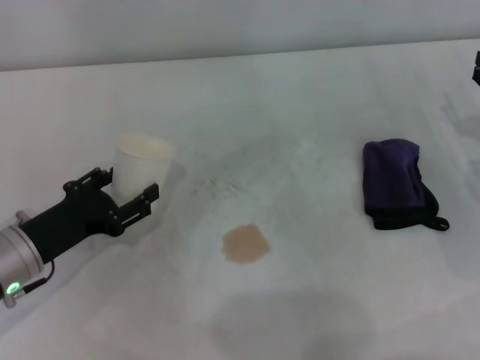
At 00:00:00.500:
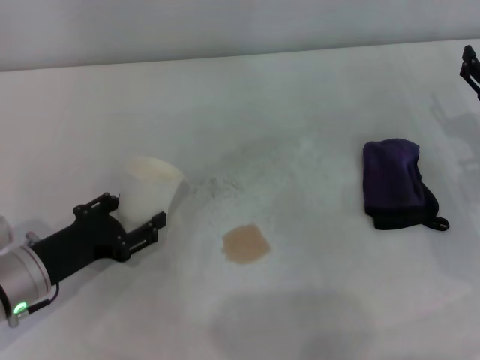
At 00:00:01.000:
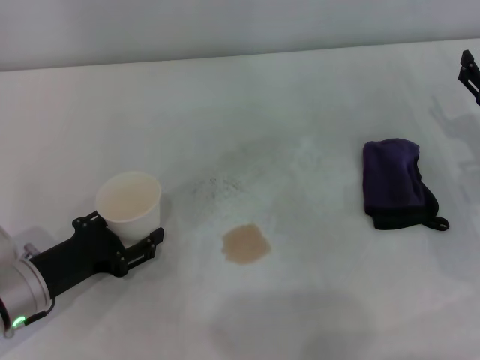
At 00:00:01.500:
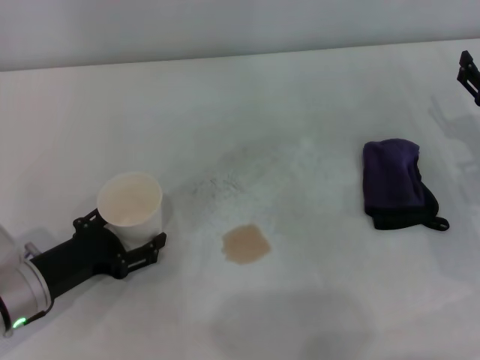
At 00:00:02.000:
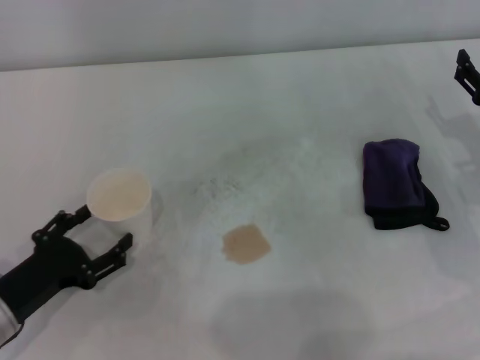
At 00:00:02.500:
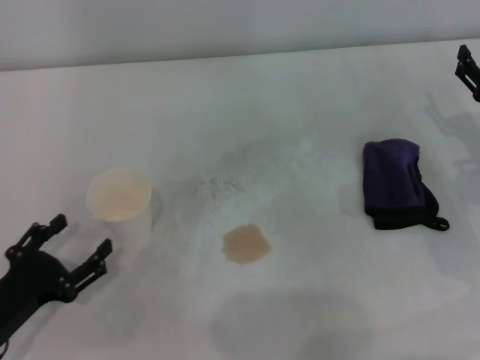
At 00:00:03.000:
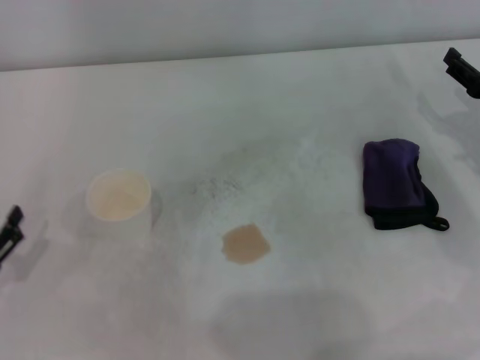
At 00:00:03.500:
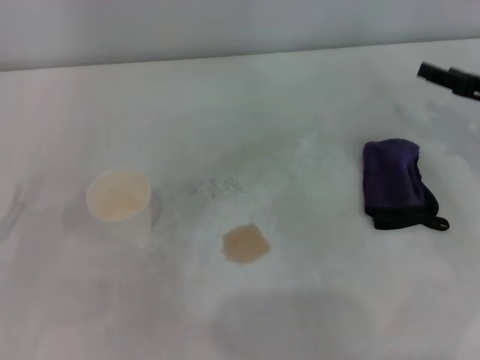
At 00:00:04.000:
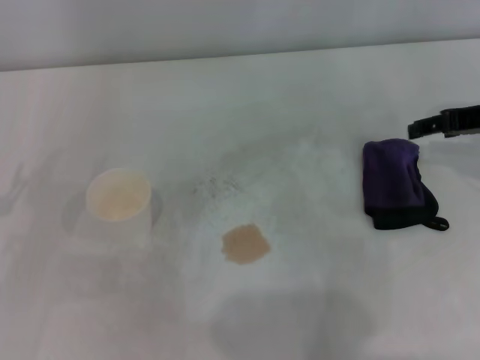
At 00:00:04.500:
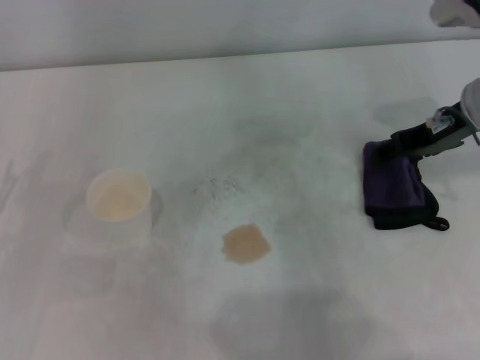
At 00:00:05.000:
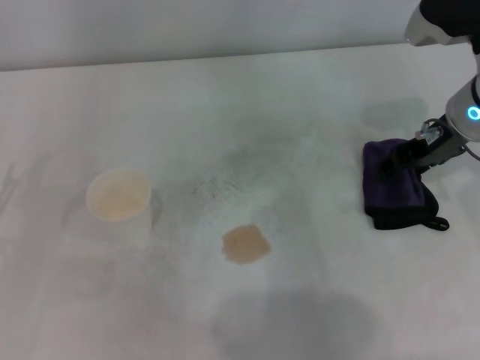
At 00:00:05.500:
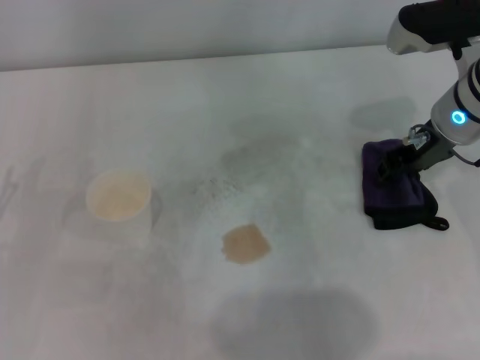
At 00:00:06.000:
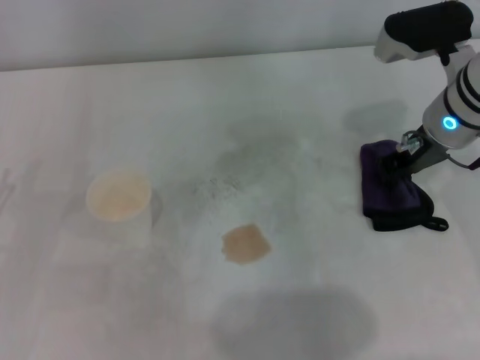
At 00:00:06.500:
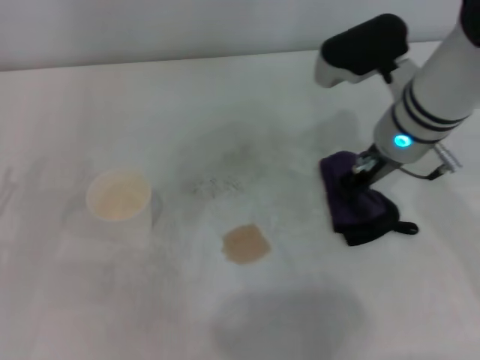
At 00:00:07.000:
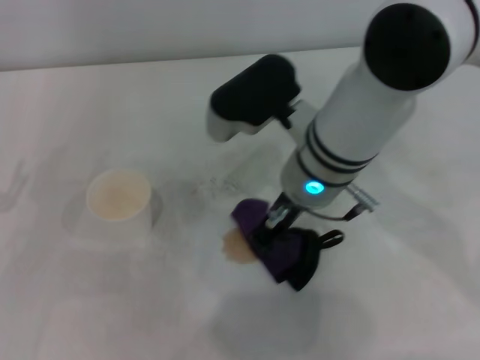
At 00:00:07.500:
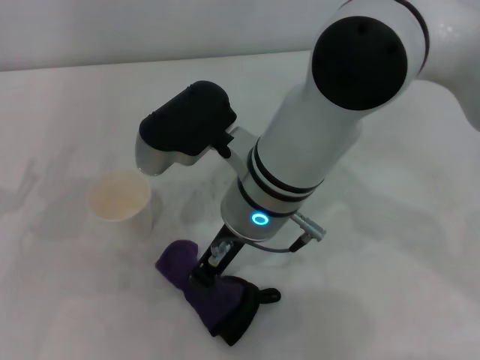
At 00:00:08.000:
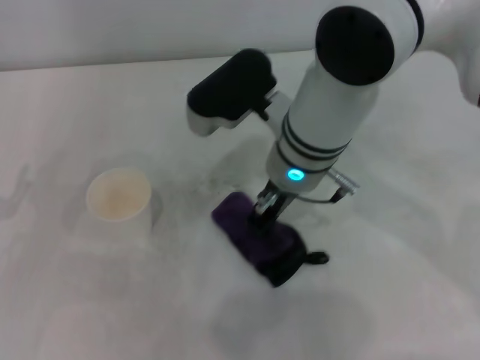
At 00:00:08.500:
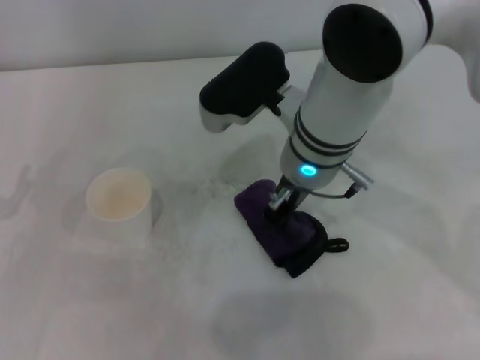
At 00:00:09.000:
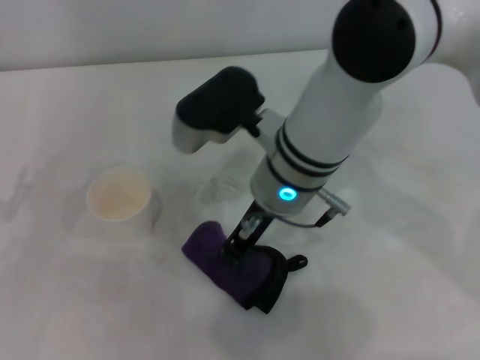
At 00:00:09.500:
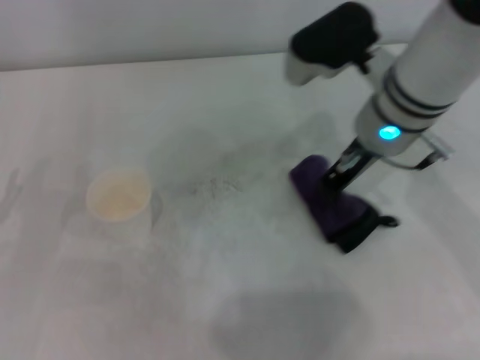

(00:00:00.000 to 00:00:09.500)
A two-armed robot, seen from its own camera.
Step, 00:00:01.500 - 00:00:05.500: Grasp the rag with the right gripper.
00:00:00.000 - 00:00:02.000: The left gripper moves backward, roughly 5 cm, and opens.
00:00:02.000 - 00:00:04.000: The left gripper is displaced to the left by some 5 cm; the right gripper is displaced upward by some 10 cm.
00:00:04.000 - 00:00:05.500: The right gripper shifts roughly 10 cm to the left, and closes its fingers.
00:00:05.500 - 00:00:07.500: The right gripper moves to the left, approximately 20 cm, and closes its fingers.
00:00:07.500 - 00:00:09.500: The right gripper is displaced to the right and forward by roughly 15 cm.

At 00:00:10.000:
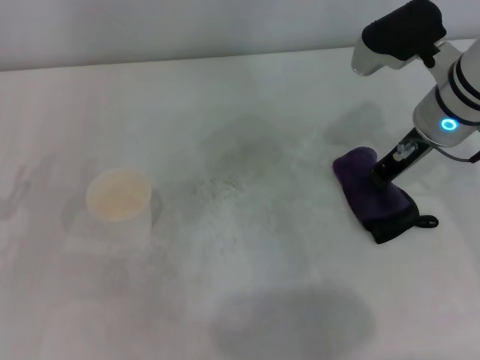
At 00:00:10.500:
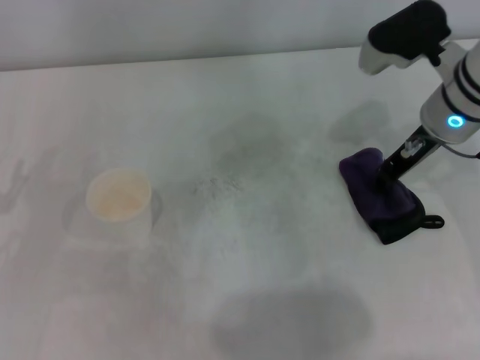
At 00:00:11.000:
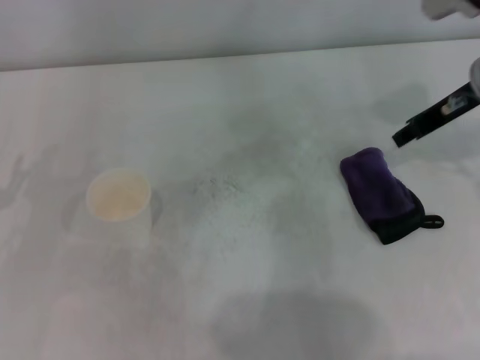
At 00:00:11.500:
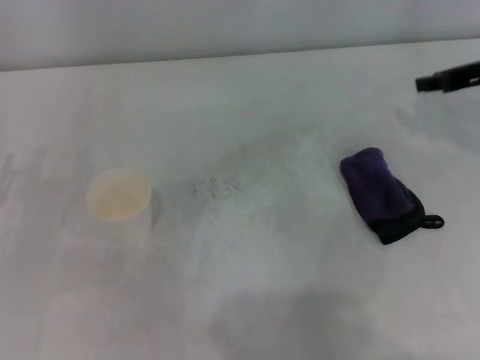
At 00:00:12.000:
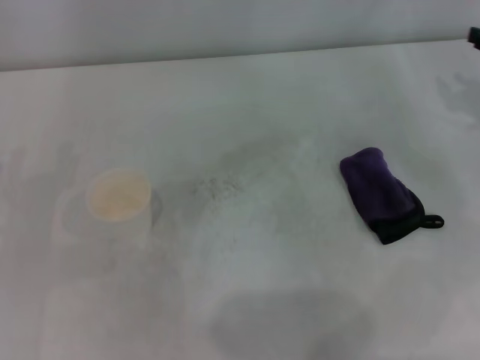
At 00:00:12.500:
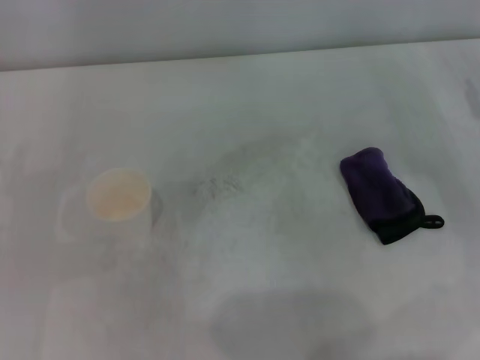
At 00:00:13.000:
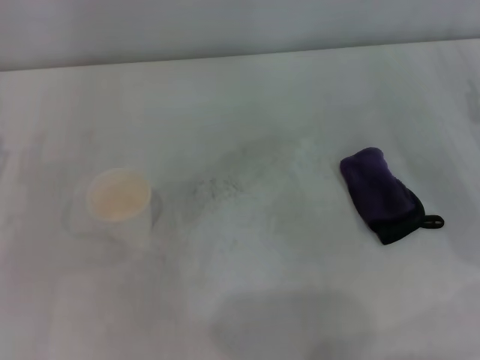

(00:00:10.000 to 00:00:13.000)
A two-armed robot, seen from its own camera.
Step, 00:00:10.000 - 00:00:10.500: Place the rag on the table with the right gripper.
00:00:10.000 - 00:00:11.500: The right gripper is displaced to the right by approximately 10 cm.
00:00:11.500 - 00:00:13.000: The right gripper is displaced downward and backward by roughly 10 cm.
